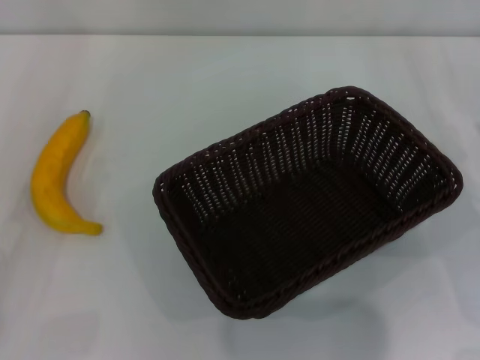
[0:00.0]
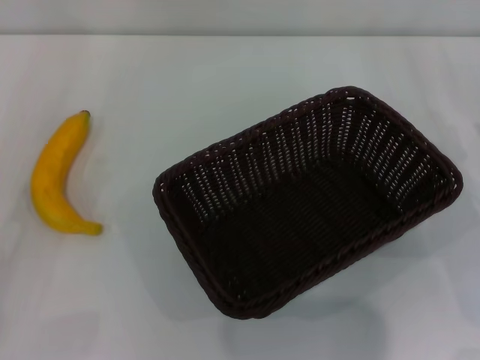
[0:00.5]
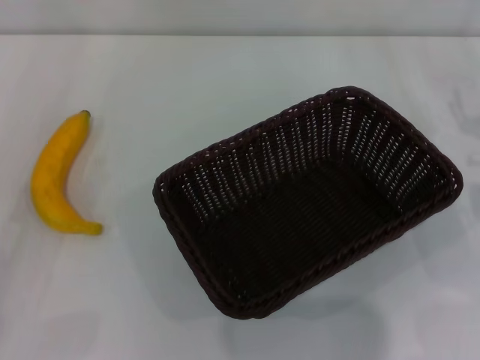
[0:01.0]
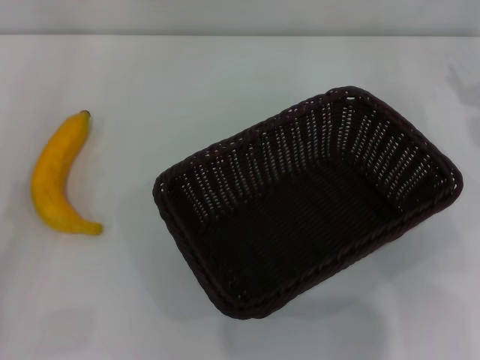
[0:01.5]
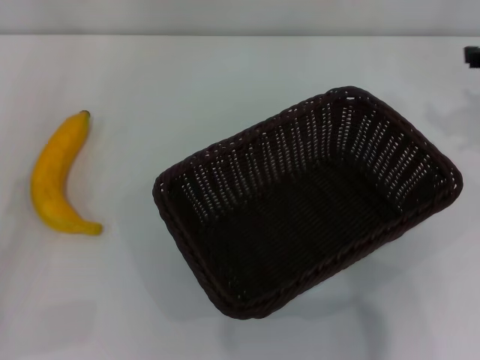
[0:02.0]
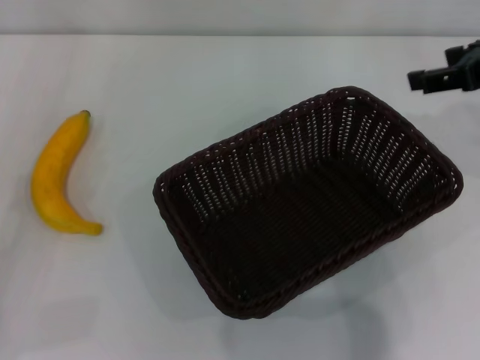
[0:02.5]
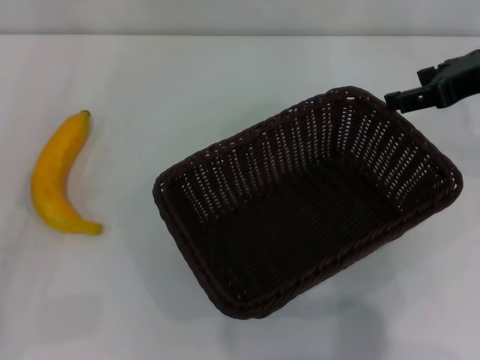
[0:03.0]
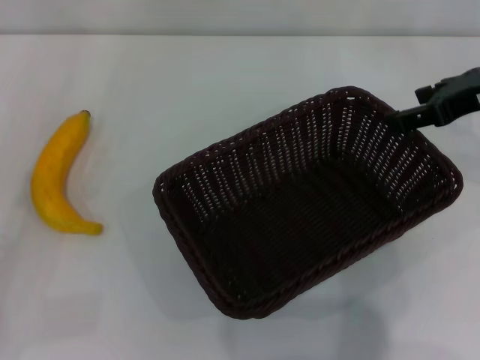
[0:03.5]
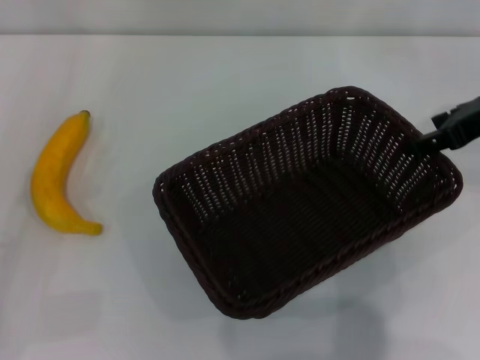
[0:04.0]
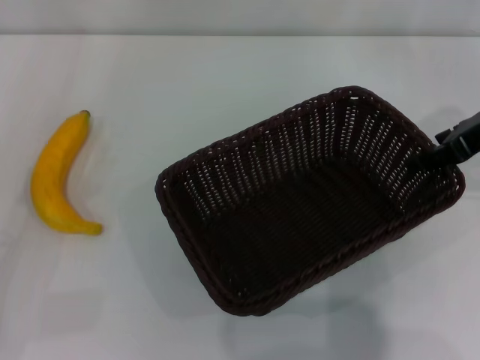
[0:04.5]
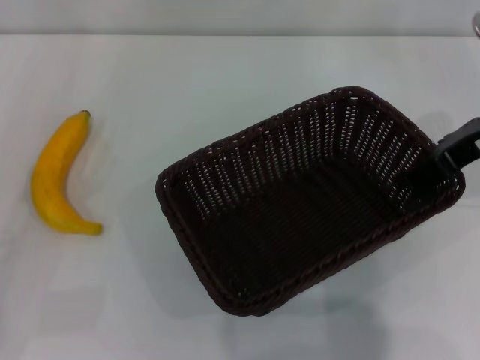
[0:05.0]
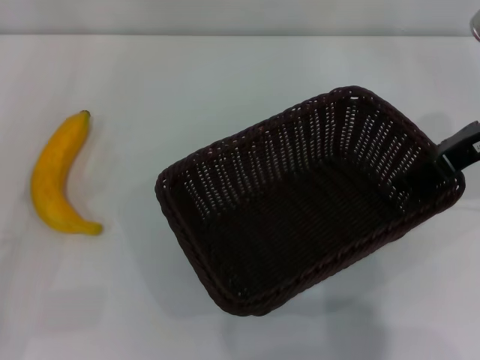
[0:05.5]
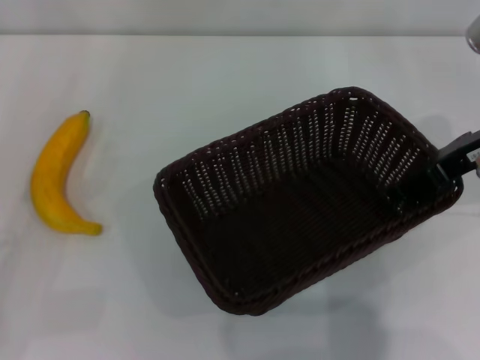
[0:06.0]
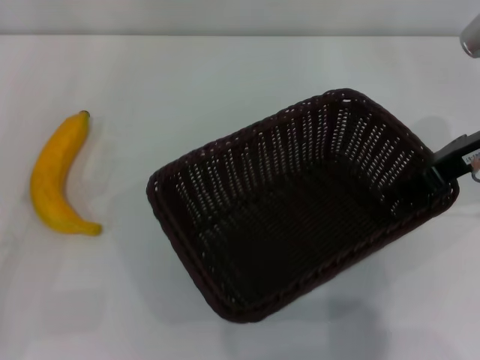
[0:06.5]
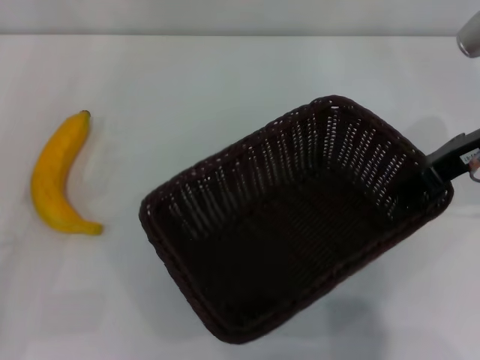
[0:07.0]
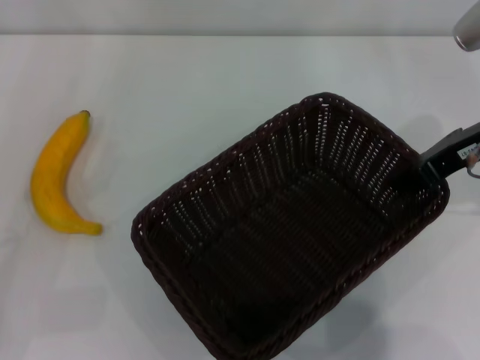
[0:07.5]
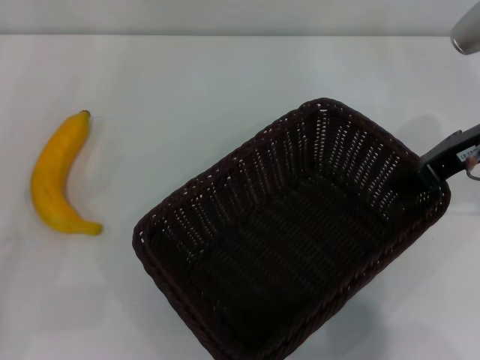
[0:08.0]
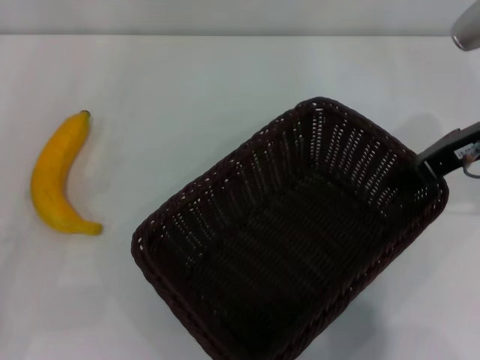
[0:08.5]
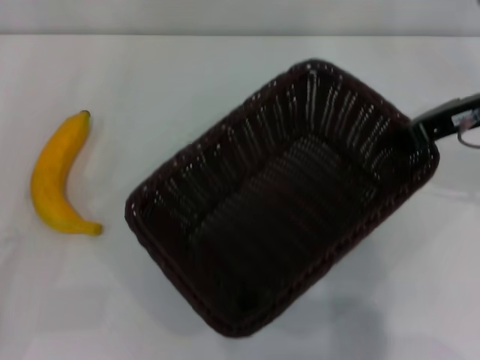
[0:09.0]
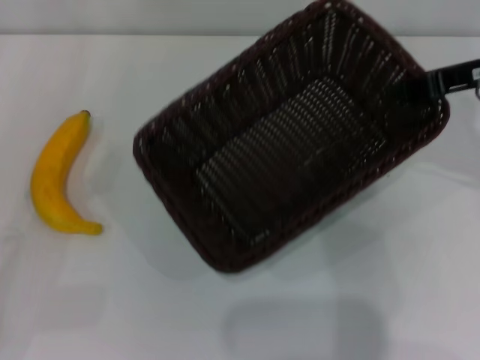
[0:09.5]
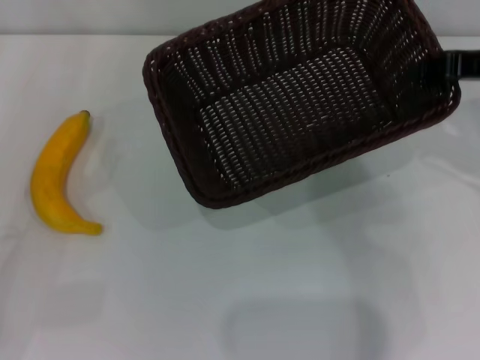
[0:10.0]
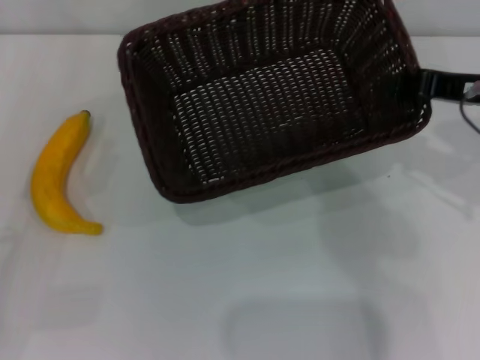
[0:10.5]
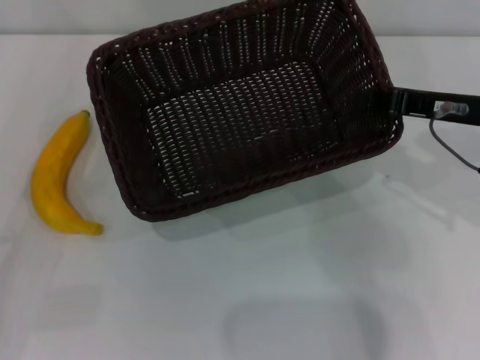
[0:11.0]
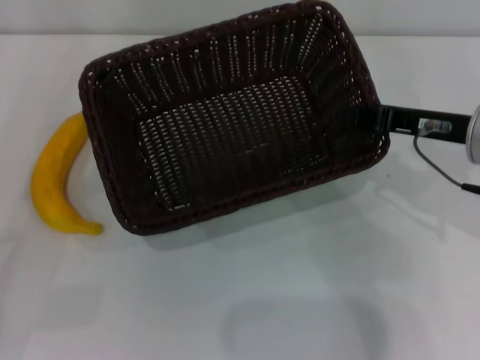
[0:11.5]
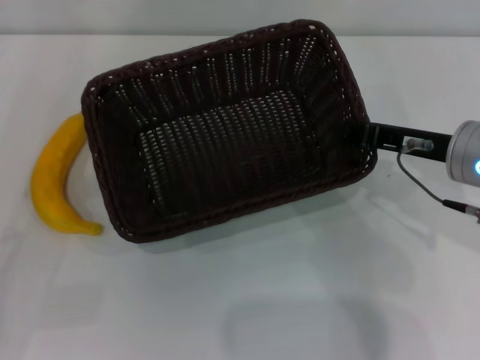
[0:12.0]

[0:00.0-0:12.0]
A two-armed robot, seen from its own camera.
Step, 0:00.0 to 0:09.0: Pick up the dark basket with the right gripper.
0:04.0 to 0:06.0: The grippers stay close to where they were, moving slightly.
0:06.0 to 0:08.0: The right gripper closes its fingers.
0:10.0 to 0:12.0: The right gripper heads downward and to the left, covering approximately 10 cm.

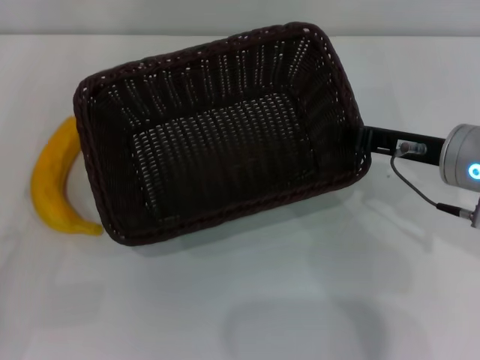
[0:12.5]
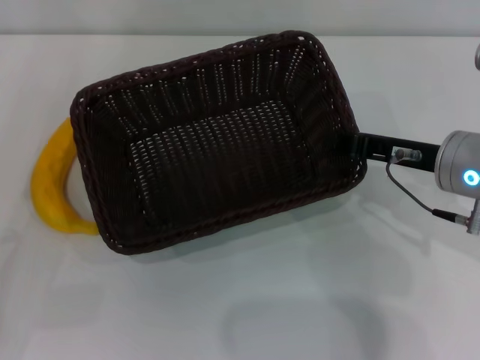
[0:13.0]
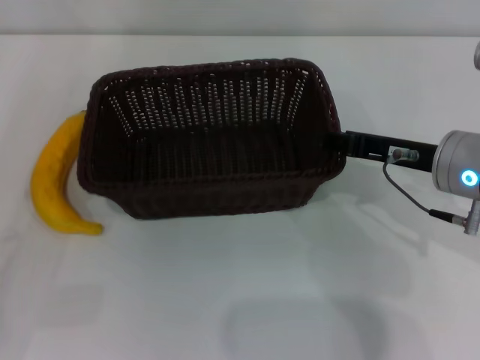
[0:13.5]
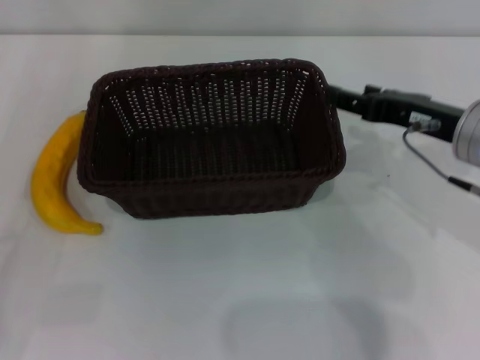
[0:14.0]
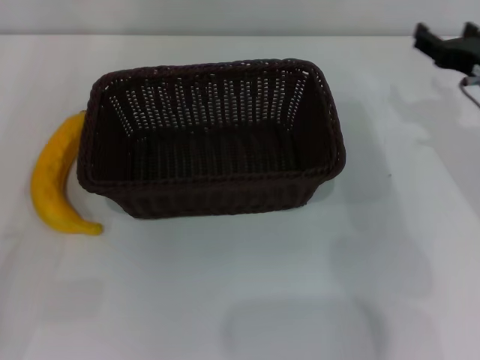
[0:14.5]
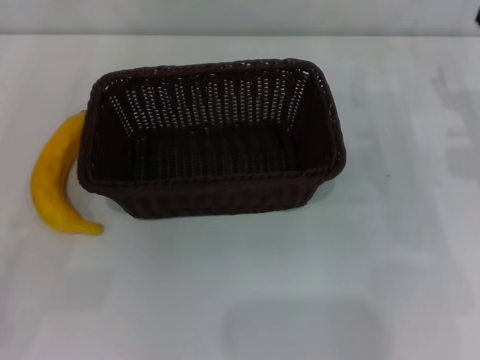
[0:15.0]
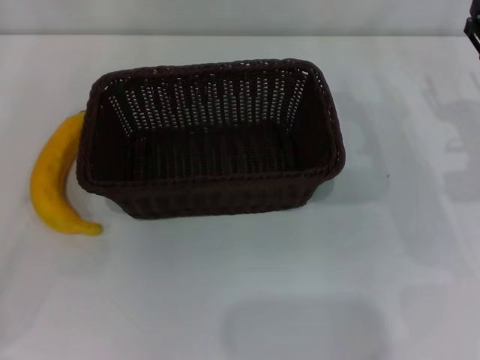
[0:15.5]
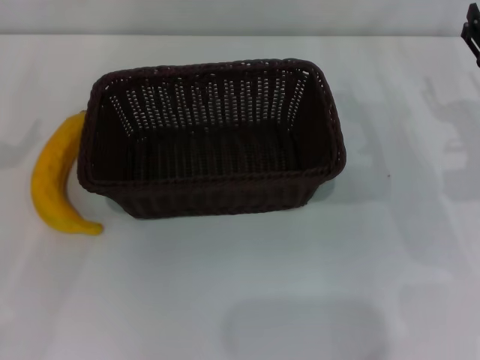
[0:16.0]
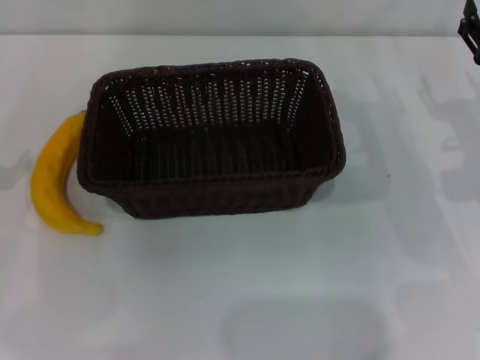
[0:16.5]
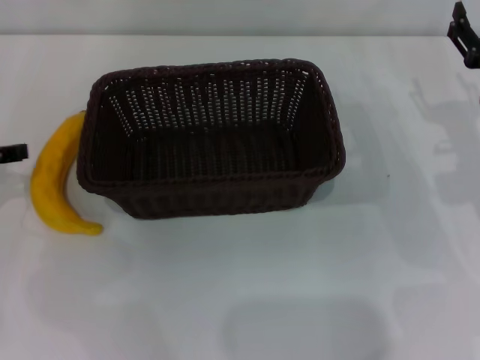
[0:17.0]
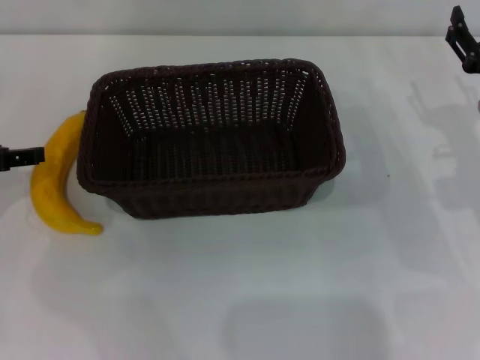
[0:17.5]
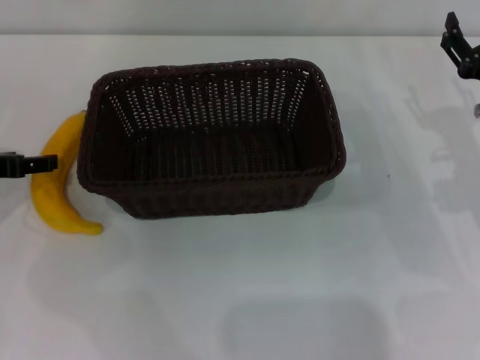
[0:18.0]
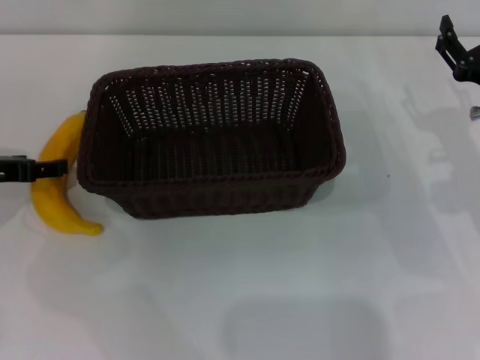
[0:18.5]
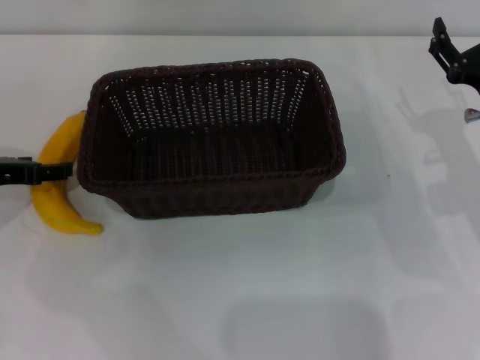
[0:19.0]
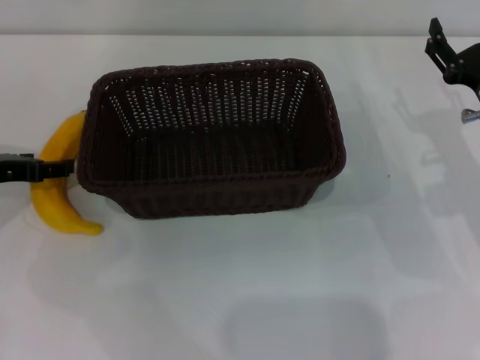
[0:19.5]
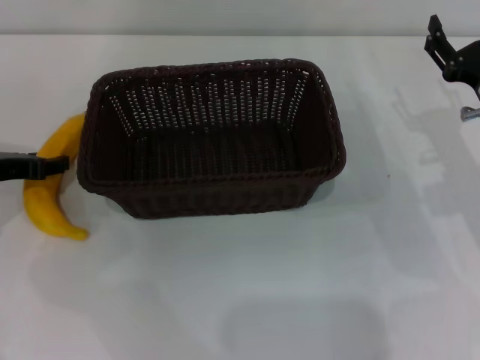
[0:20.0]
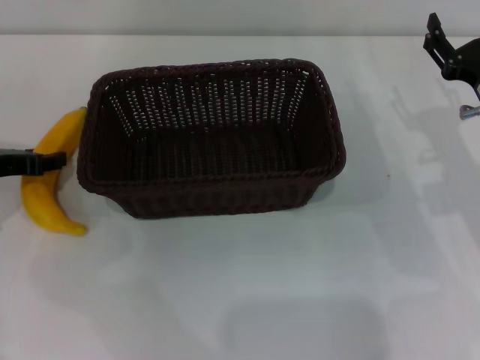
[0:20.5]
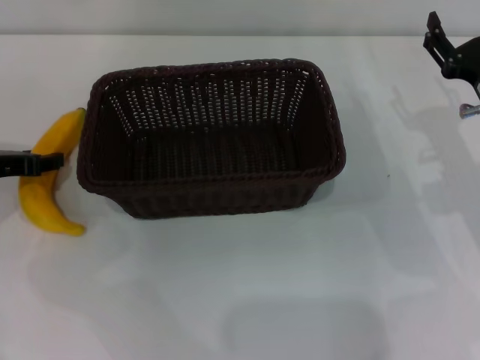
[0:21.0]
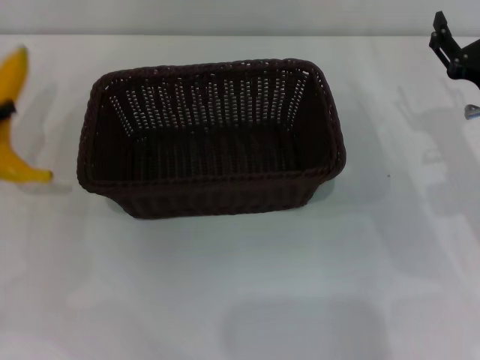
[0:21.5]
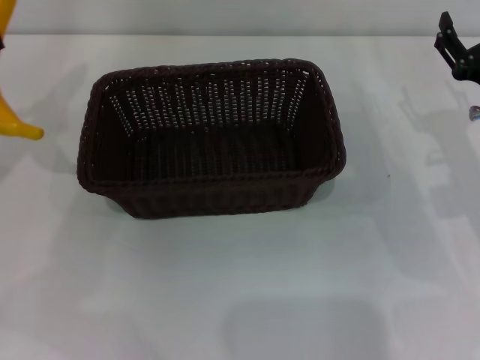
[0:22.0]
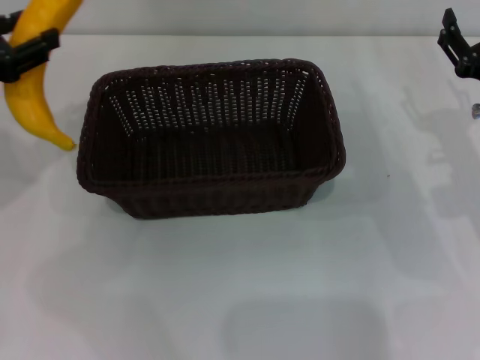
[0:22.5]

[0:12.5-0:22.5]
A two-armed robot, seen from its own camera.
Step, 0:14.5 to 0:21.5: Pick up the banana with the left gripper.
0:12.5 to 0:14.5: The right gripper shifts by roughly 5 cm, and opens its fingers.
0:16.5 to 0:18.5: The left gripper shifts about 5 cm downward.
0:18.5 to 0:20.5: The left gripper closes.
0:20.5 to 0:22.5: The left gripper goes roughly 10 cm upward.

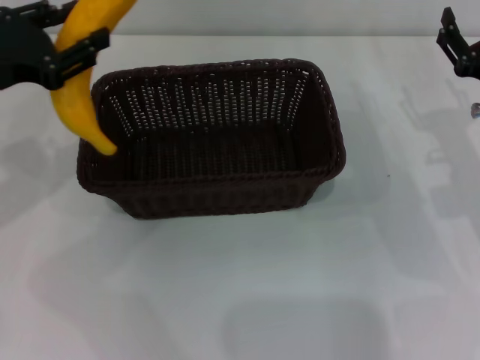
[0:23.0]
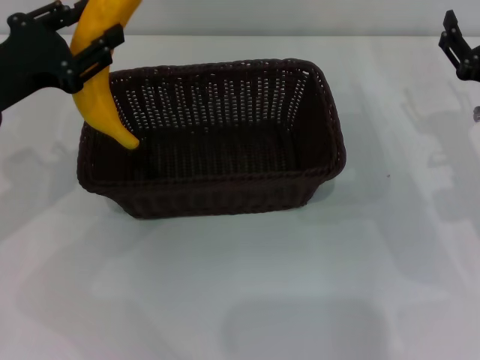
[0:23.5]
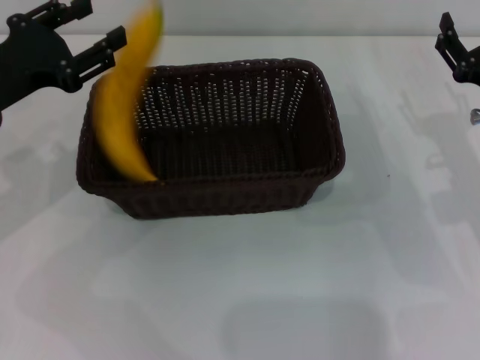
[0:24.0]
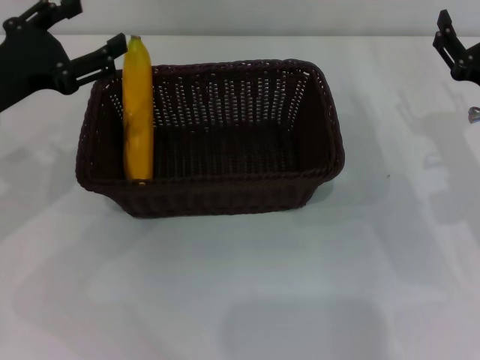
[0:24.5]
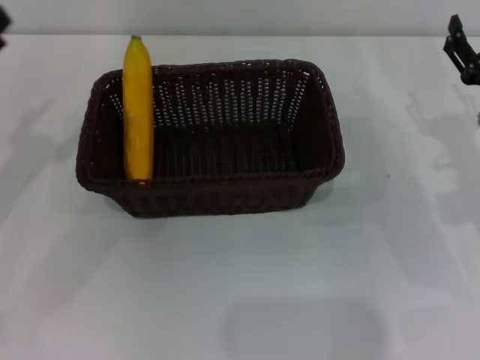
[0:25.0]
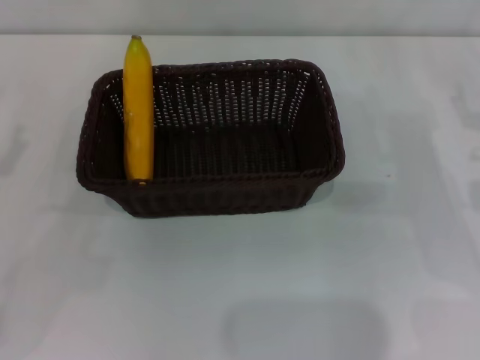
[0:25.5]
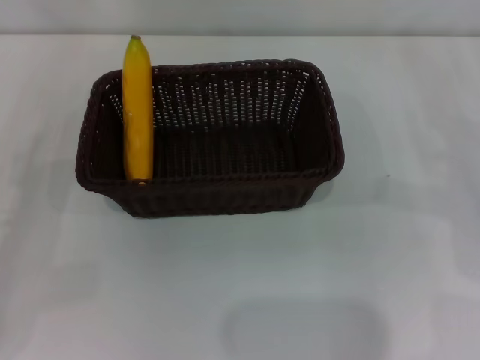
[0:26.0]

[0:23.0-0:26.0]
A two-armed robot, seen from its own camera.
Step, 0:23.0 to 0:24.5: Place the banana into the dark basket with the left gripper.
0:23.0 to 0:24.5: The left gripper opens.
0:24.5 to 0:26.0: The right gripper moves to the right, about 10 cm. Meanwhile the left gripper shifts about 15 cm to the left and backward.
